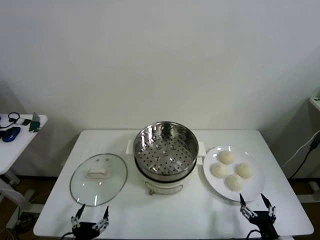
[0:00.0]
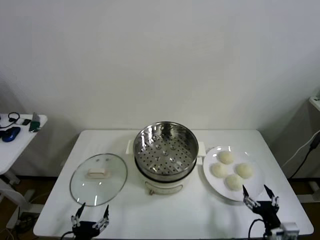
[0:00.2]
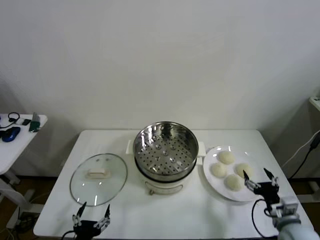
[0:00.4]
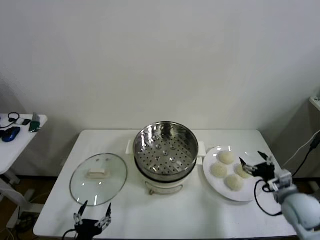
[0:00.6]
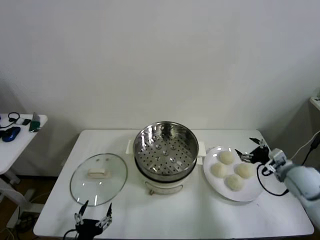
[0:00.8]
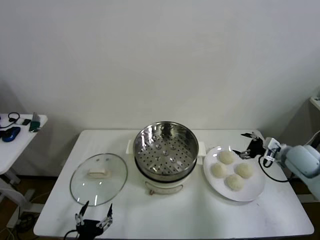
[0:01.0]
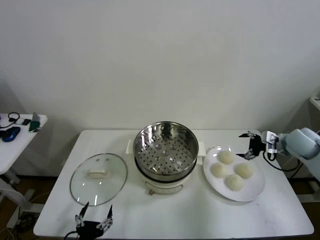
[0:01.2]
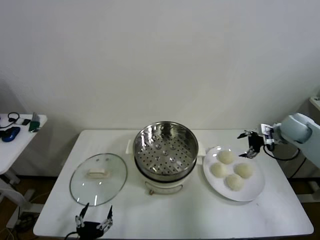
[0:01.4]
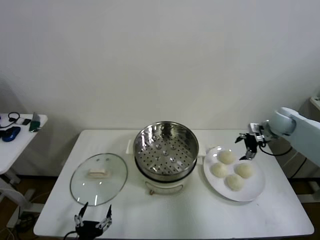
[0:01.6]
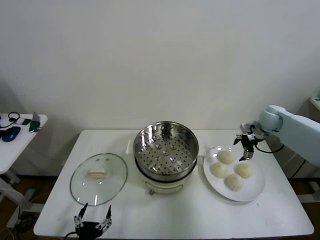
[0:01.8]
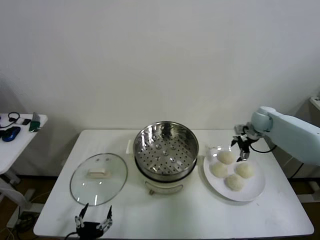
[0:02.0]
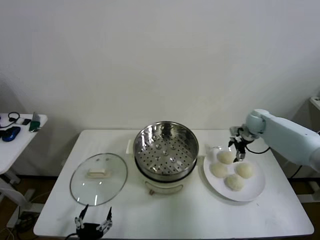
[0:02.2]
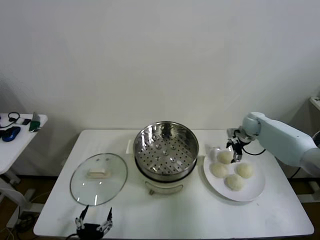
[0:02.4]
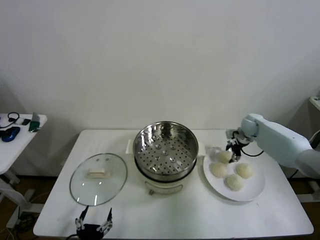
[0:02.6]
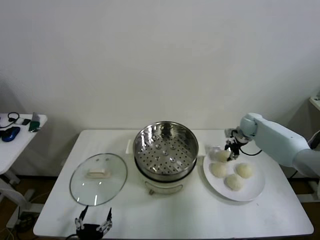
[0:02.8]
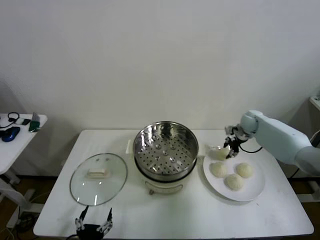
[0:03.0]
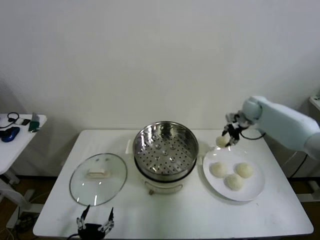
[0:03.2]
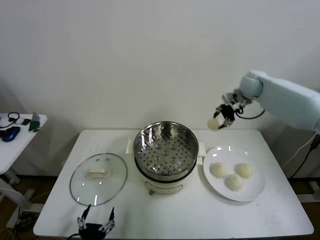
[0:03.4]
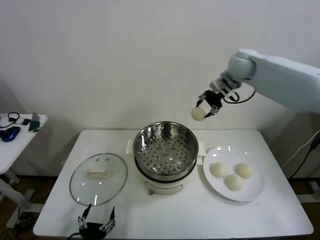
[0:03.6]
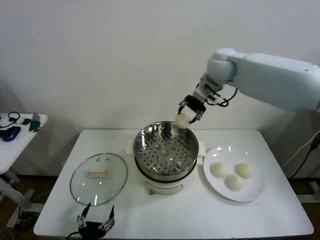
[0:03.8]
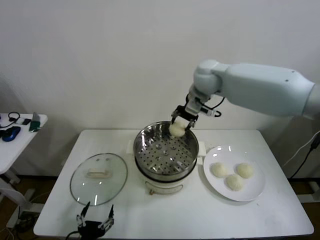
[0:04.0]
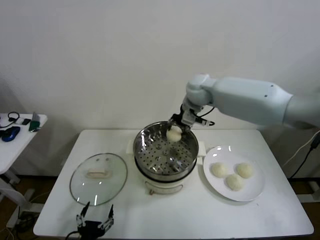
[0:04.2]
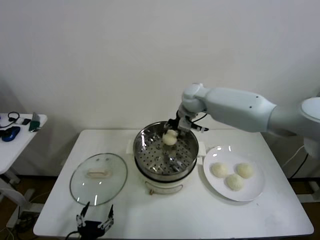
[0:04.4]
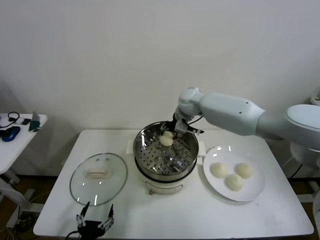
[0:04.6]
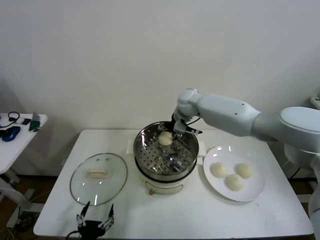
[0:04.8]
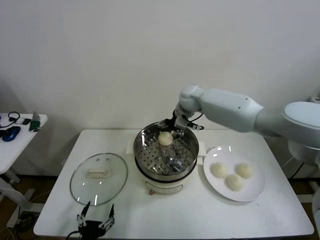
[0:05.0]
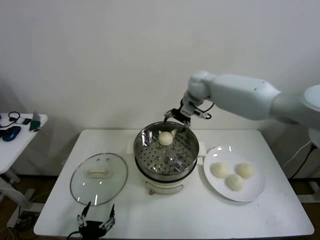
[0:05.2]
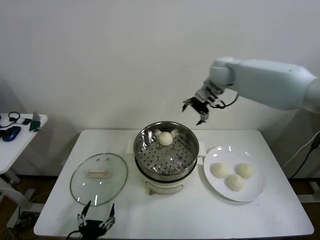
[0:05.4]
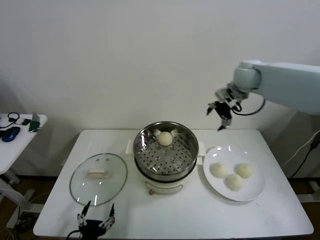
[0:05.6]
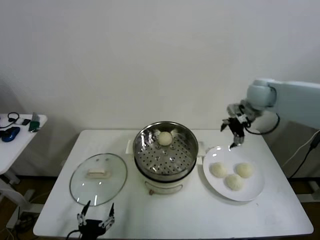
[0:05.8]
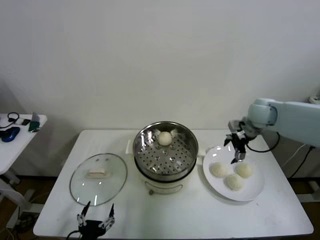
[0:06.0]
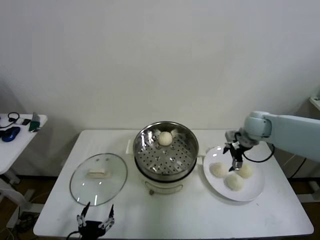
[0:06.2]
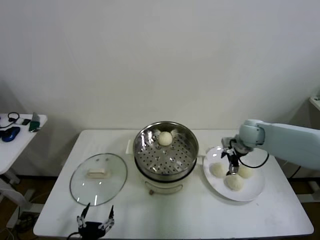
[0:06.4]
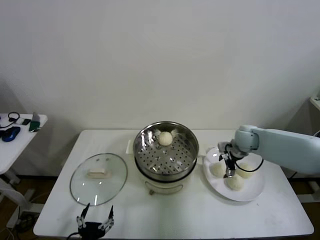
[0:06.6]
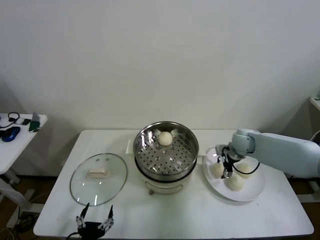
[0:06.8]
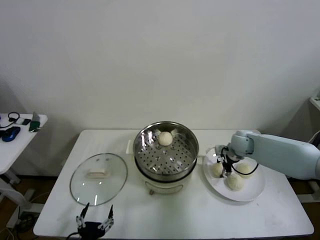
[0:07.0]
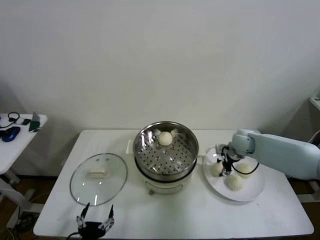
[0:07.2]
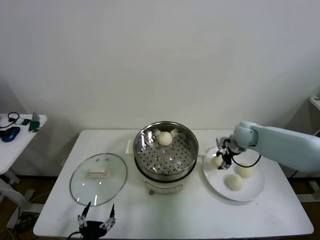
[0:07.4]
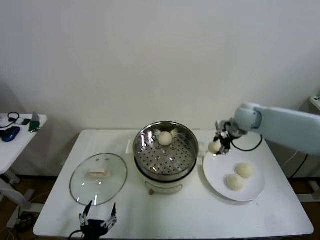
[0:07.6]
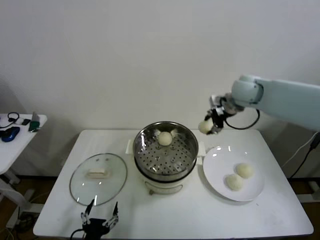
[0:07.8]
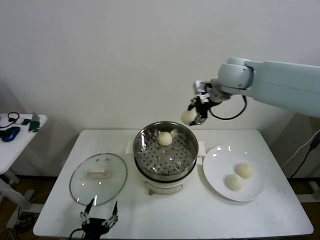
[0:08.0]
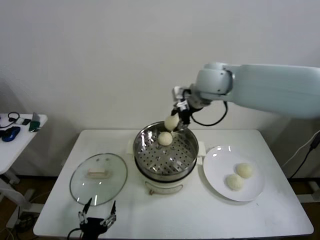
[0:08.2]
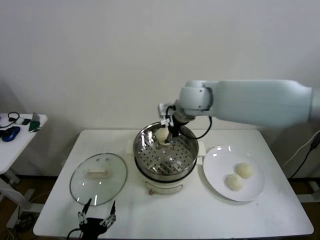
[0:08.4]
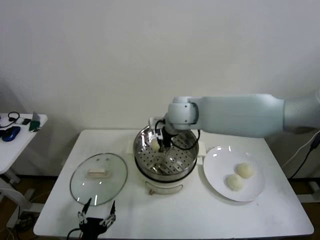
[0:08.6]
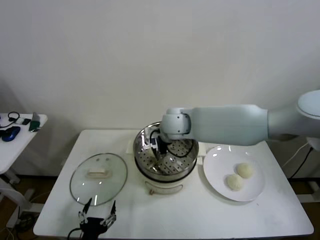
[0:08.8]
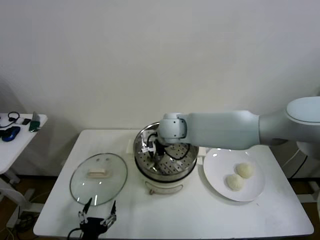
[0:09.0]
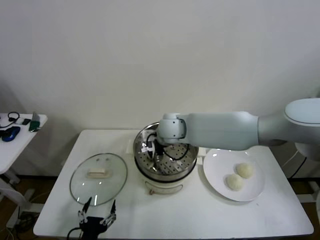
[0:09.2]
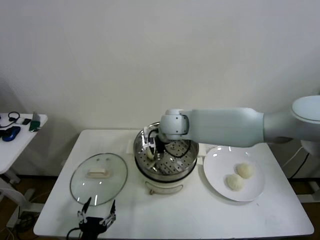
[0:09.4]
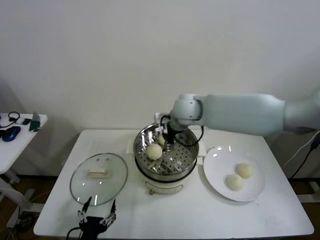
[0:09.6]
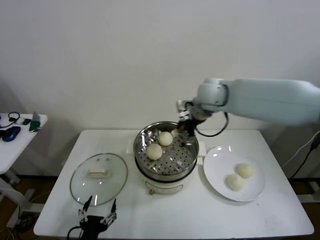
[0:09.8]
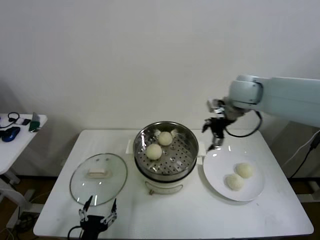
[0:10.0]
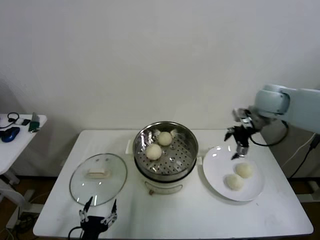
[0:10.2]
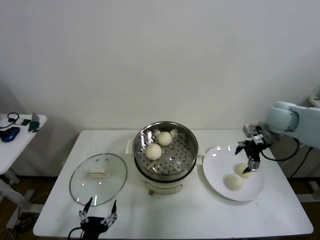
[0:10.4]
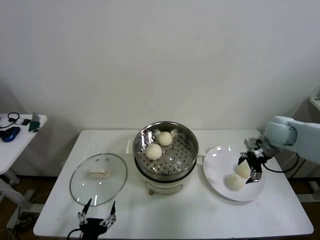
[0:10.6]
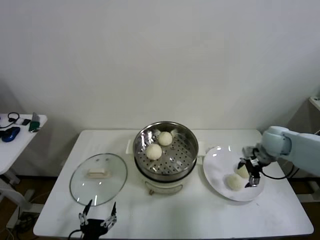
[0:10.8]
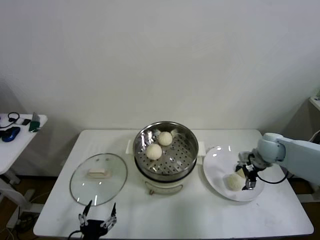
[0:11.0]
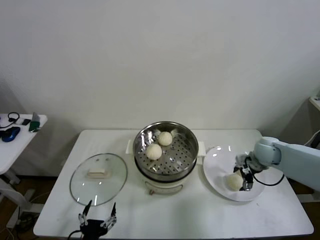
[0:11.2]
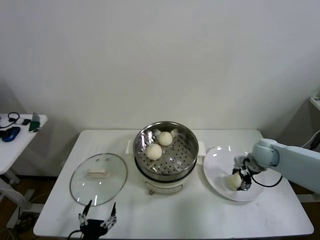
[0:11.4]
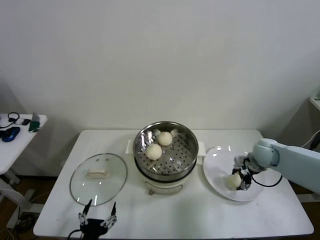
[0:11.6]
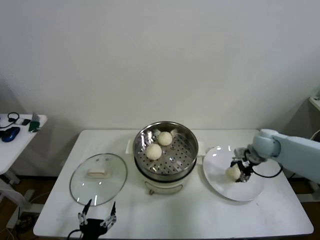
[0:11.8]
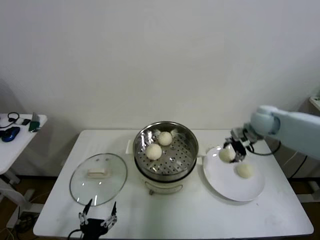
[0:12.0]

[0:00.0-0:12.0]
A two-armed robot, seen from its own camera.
Step, 0:00.0 to 0:02.6: Grasp the baozi in the plate with right gripper.
Step, 0:02.8 to 0:04.8: Place the baozi on the steamer with right gripper.
Step, 0:05.0 to 0:07.0: Grasp the baozi in the plate with right gripper.
Step, 0:07.2 to 0:09.2: Place the baozi on the steamer with right gripper.
Step, 0:09.6 to 0:11.4: Grasp the baozi in the plate with right gripper.
0:01.6 to 0:03.0: The right gripper goes about 5 cm forward, and closes its fingers.
0:03.0 to 0:04.4: The right gripper shifts about 25 cm to the left.
0:04.4 to 0:06.0: The right gripper moves to the right, roughly 25 cm, and opens up.
0:06.0 to 0:07.6: The right gripper goes downward and returns, some 10 cm each way, and closes its fingers.
0:07.6 to 0:09.0: The right gripper is displaced to the left by approximately 25 cm.
0:09.0 to 0:10.4: The right gripper is displaced to the right by some 35 cm, and opens up.
0:10.4 to 0:12.0: The right gripper travels downward and back again, some 15 cm each way, and closes up.

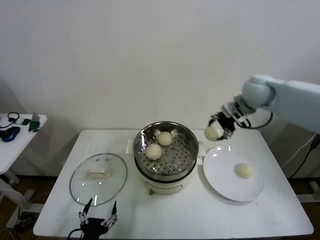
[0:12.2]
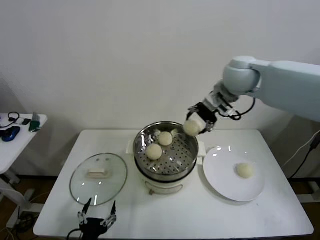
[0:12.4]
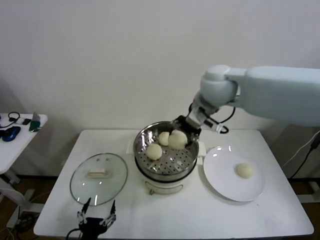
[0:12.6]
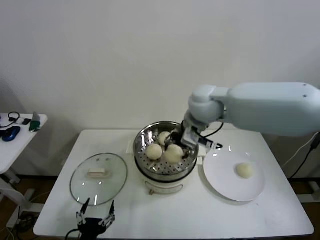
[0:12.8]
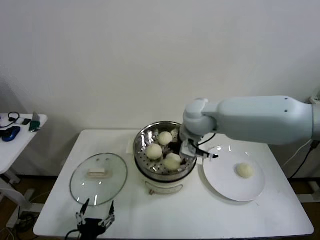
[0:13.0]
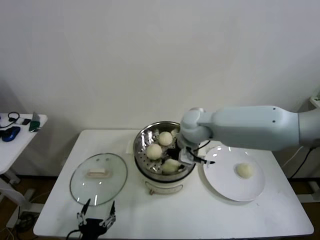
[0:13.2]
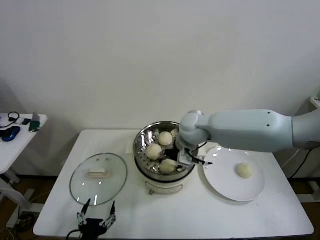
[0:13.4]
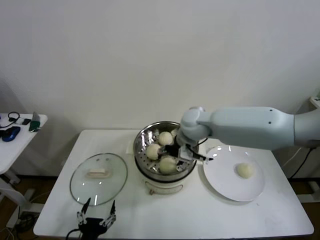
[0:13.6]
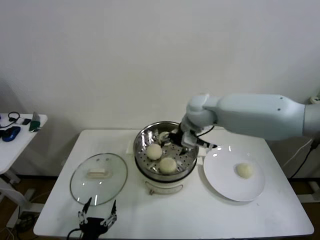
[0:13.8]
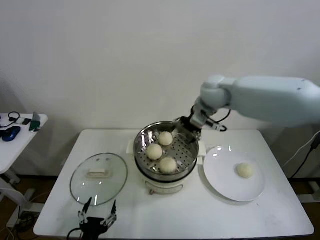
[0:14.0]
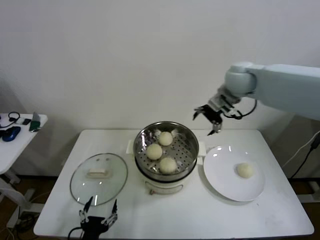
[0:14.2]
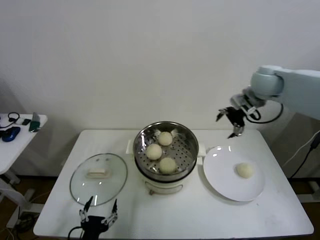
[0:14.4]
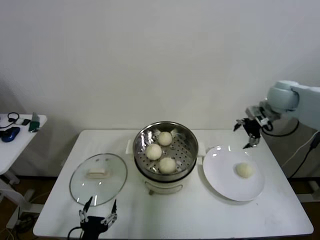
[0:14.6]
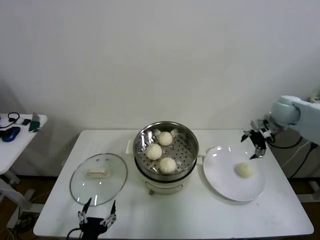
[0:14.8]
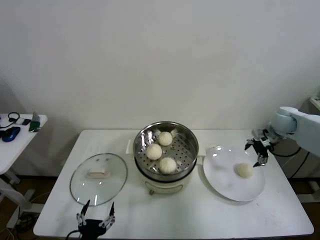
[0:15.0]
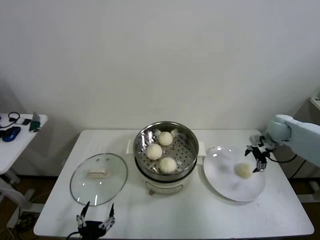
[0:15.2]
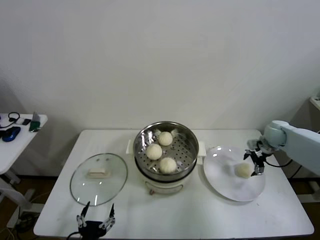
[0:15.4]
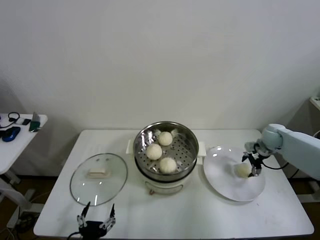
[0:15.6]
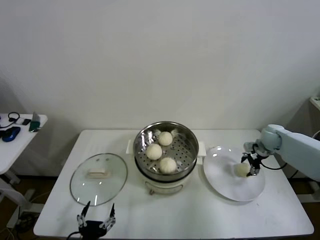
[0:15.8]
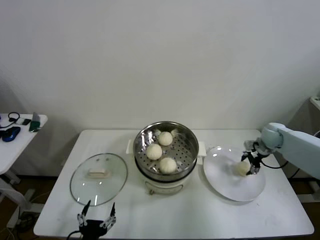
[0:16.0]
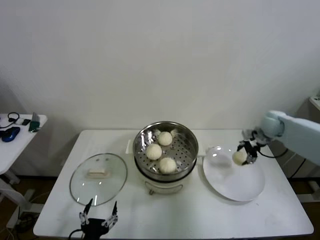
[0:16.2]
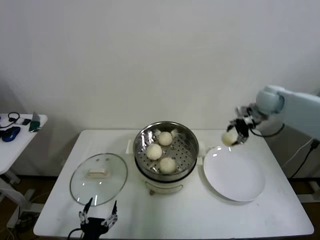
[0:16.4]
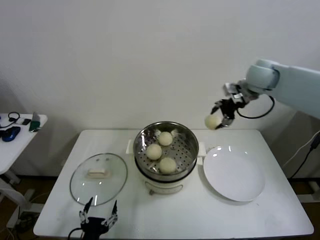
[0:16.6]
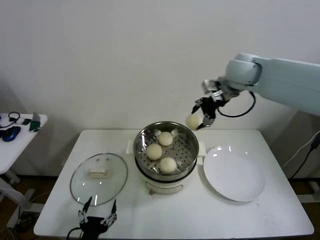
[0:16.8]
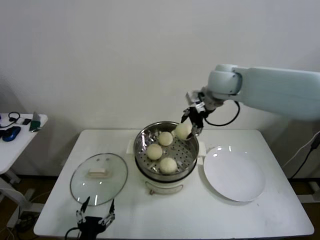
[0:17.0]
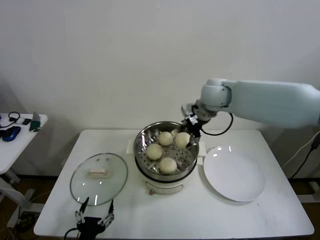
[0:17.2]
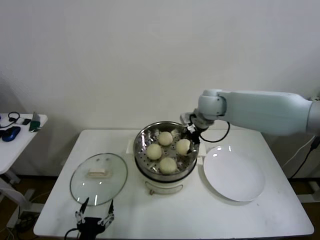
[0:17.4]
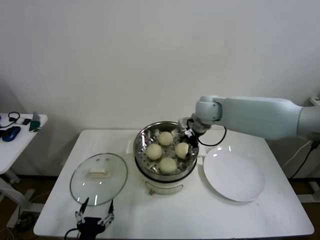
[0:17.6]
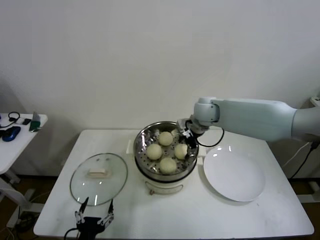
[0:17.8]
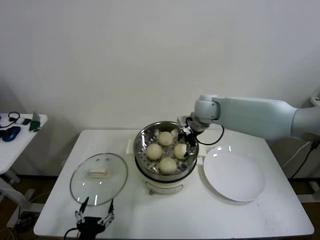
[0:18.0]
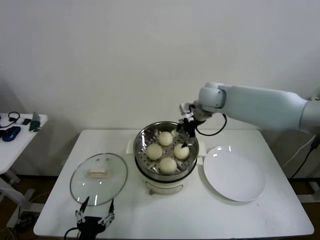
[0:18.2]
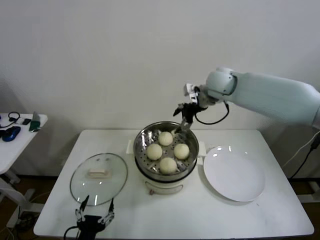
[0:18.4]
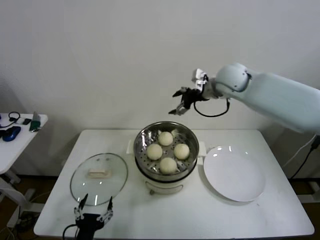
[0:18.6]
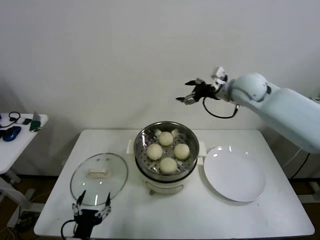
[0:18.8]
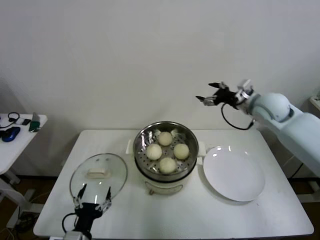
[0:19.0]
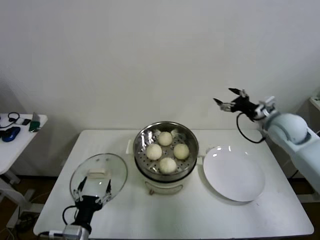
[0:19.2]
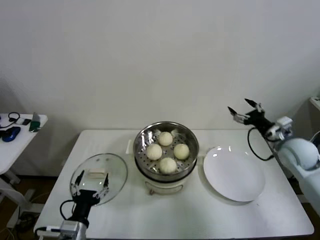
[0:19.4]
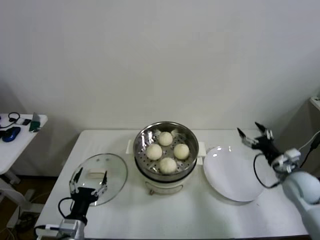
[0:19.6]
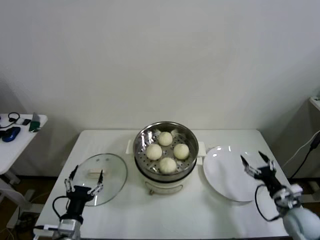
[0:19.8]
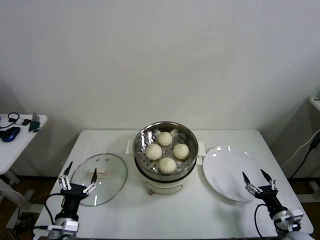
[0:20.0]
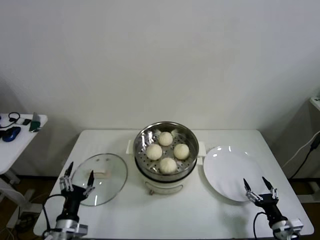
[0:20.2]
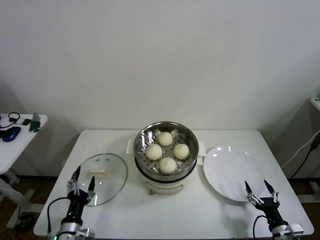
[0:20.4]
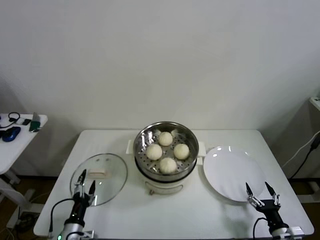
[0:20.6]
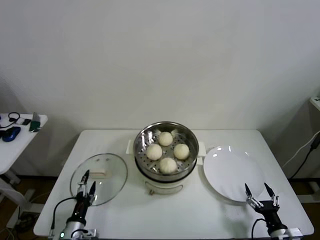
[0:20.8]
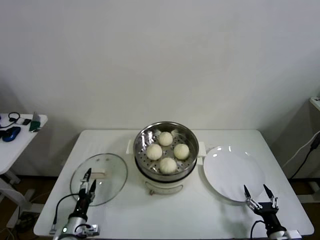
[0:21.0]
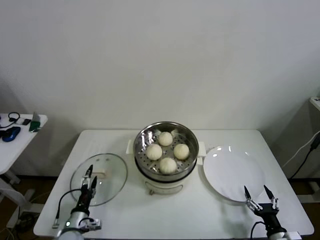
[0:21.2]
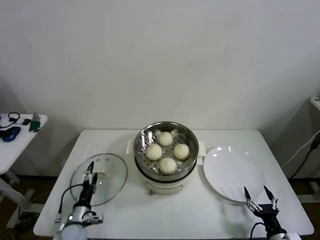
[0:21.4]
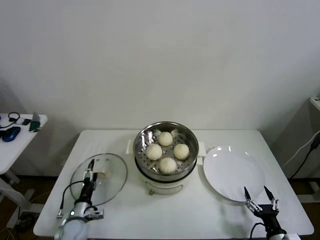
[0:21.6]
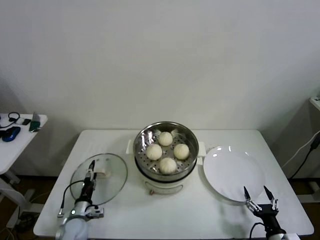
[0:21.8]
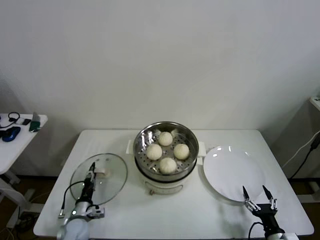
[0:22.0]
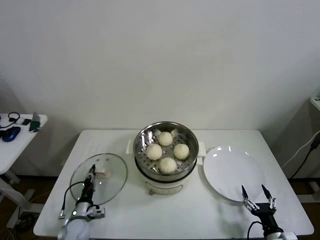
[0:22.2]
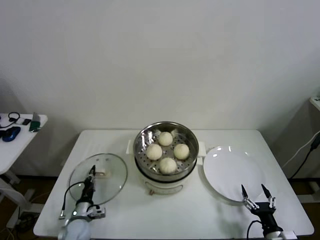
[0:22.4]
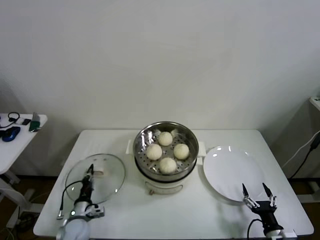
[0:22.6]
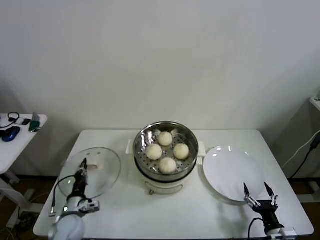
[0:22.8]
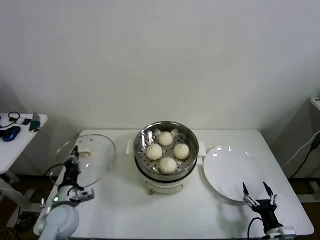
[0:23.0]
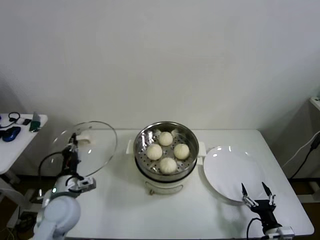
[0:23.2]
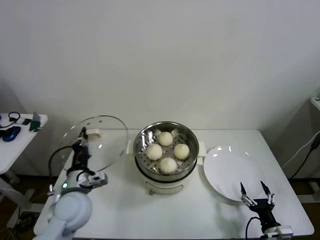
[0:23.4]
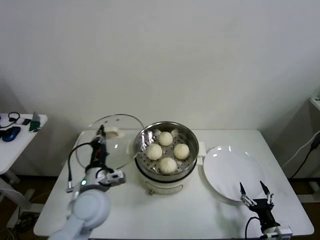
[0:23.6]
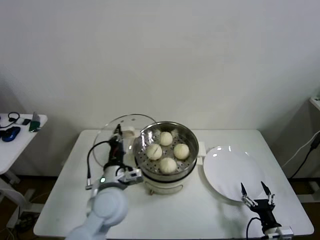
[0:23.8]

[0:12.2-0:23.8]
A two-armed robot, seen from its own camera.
Step, 0:12.2 to 0:13.4: Place the baozi on the steamer with right gripper.
Step, 0:13.8 to 0:15.8: Grasp the baozi in the plate with right gripper.
Step, 0:16.0 to 0:17.8: Place the baozi on the steamer with right gripper.
Step, 0:18.0 to 0:22.4: Grasp the pot lid with left gripper.
0:12.2 to 0:13.6: The right gripper heads to the left and downward, covering some 20 cm, and opens up.
0:13.6 to 0:15.0: The right gripper heads to the right, covering approximately 35 cm.
0:15.0 to 0:16.6: The right gripper travels upward and to the left by roughly 25 cm, and closes.
0:16.6 to 0:18.0: The right gripper goes about 20 cm to the left and downward, and opens up.
0:18.0 to 0:19.4: The right gripper shifts approximately 30 cm to the right and backward, while the left gripper heads forward, covering approximately 5 cm.
0:19.4 to 0:21.0: The right gripper shifts some 35 cm backward and downward, while the left gripper travels downward and to the left by roughly 15 cm.
0:21.0 to 0:22.4: The left gripper is displaced forward by about 5 cm, and closes up.
0:22.4 to 0:23.8: The left gripper travels upward and to the right by roughly 30 cm.
